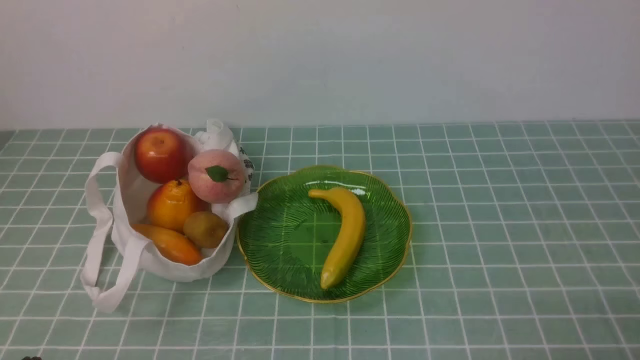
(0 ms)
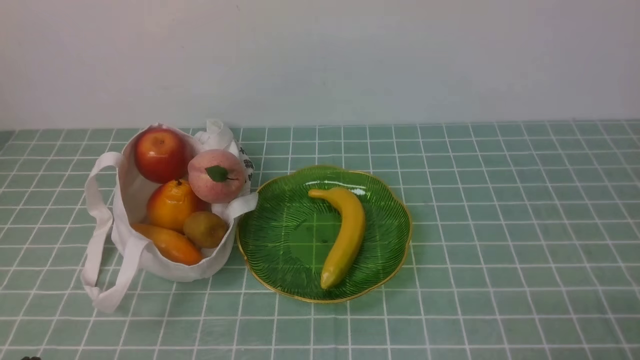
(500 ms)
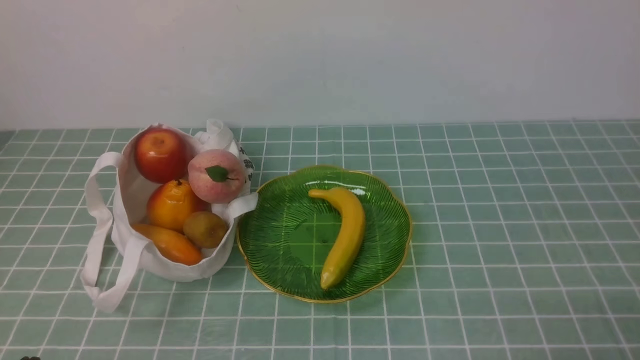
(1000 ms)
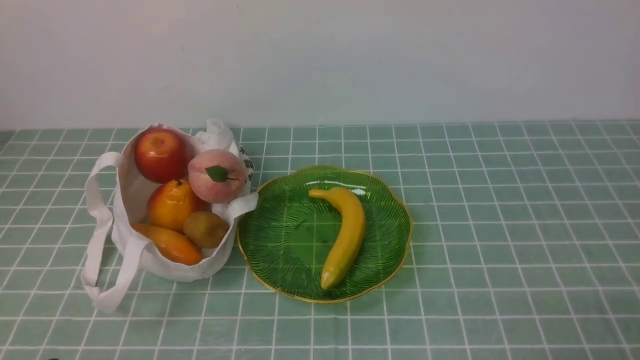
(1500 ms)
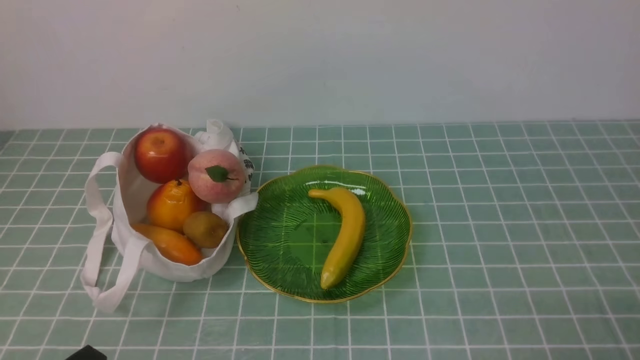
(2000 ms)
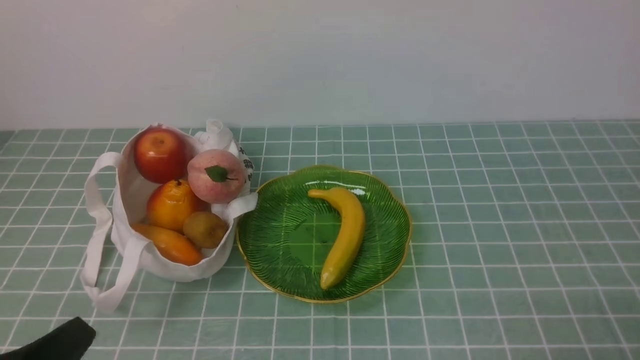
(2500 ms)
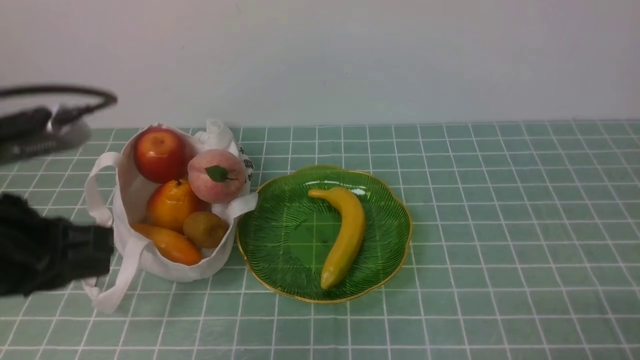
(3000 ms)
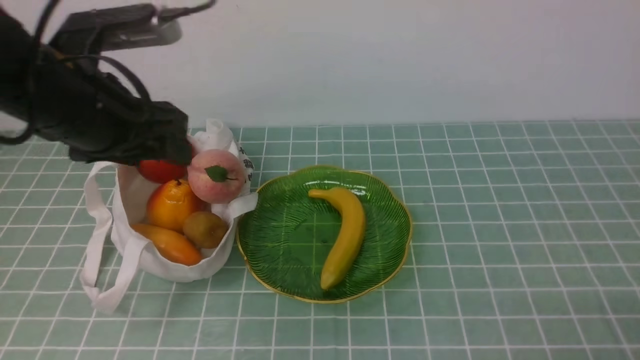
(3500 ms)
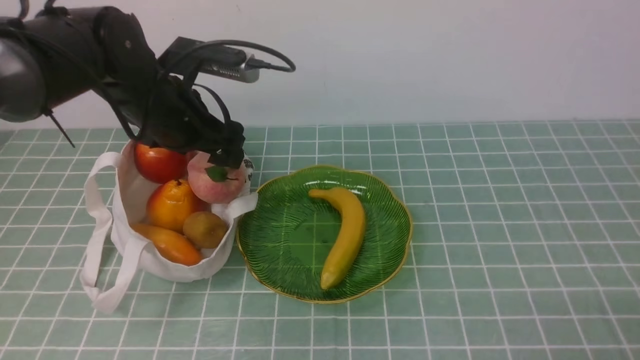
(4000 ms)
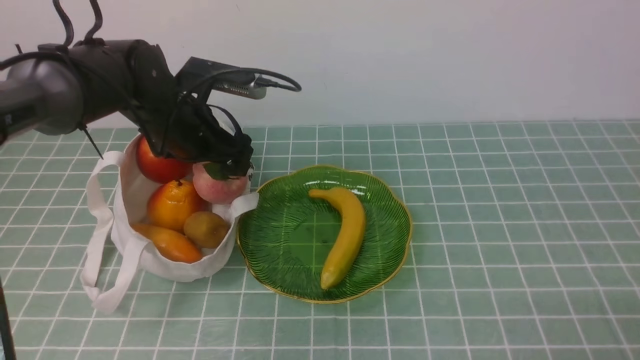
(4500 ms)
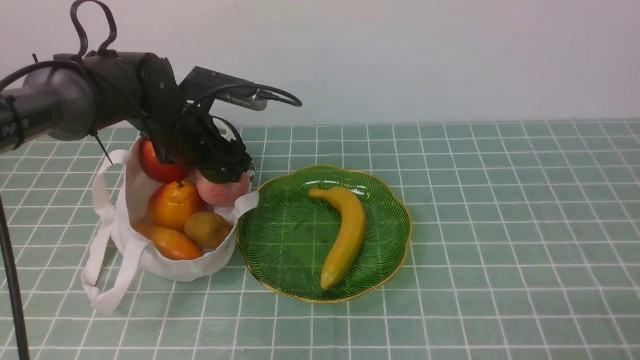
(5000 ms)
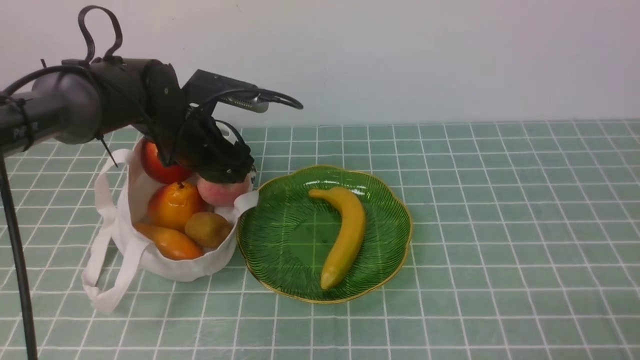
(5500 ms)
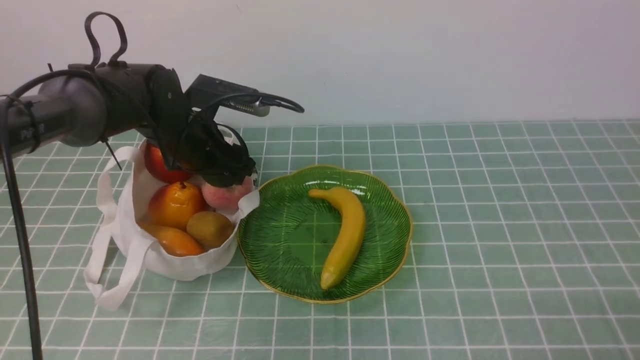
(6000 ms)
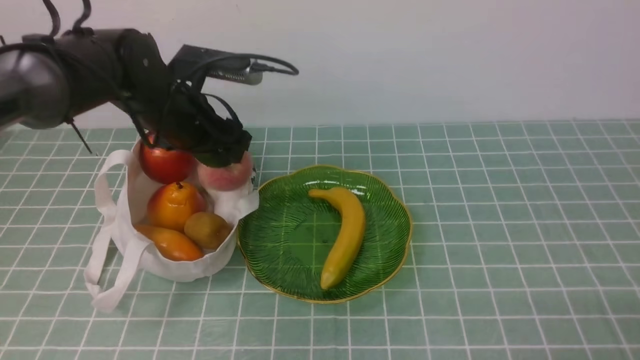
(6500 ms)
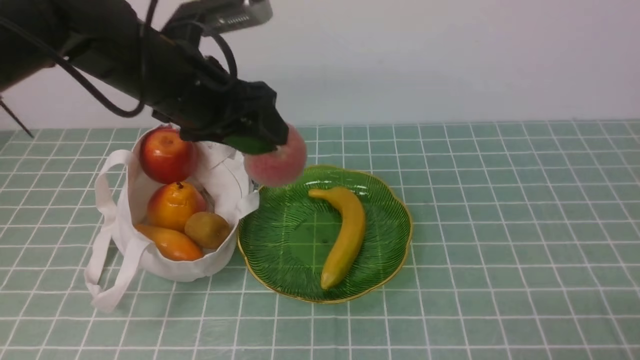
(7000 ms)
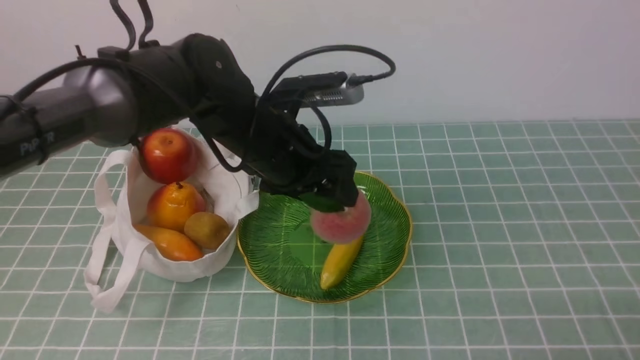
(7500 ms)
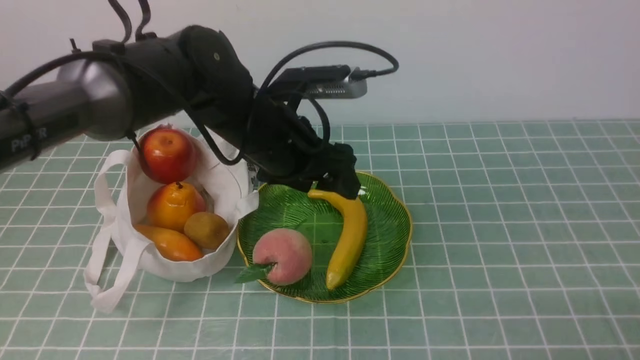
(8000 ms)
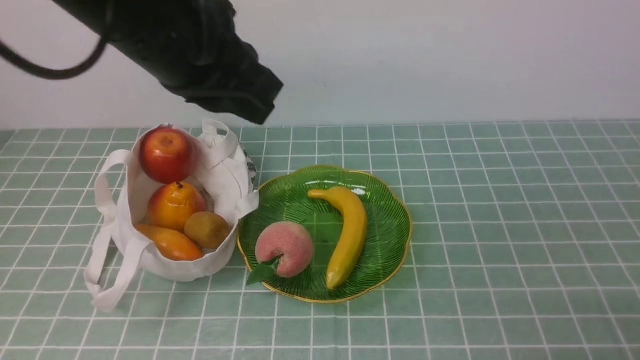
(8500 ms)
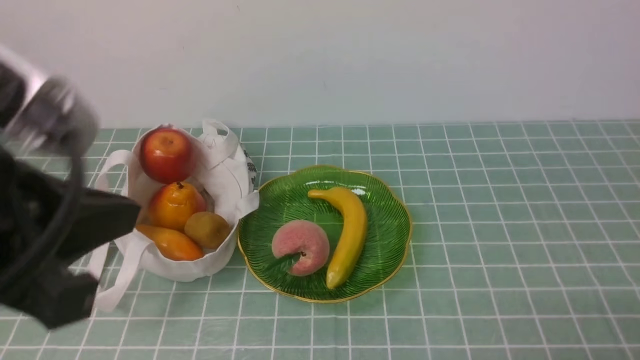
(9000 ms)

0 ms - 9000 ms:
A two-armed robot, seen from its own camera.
Step, 0 ms - 6500 ms: use the left arm to grab a peach from the bag.
Step, 7000 ms - 7500 ms: use the left arm to put the peach into the empty plate on the right.
2000 ms - 4500 ms: The left gripper goes approximately 35 cm forward, and opens up.
4500 ms - 7000 ms: The left gripper is displaced upward and backward by about 10 cm.
7000 ms - 9000 ms: The left gripper shifts about 25 cm backward, and closes its fingers.

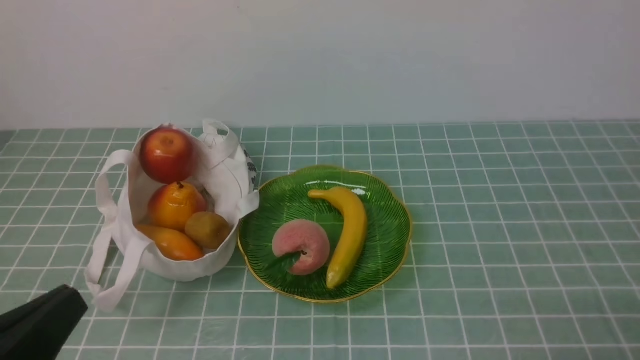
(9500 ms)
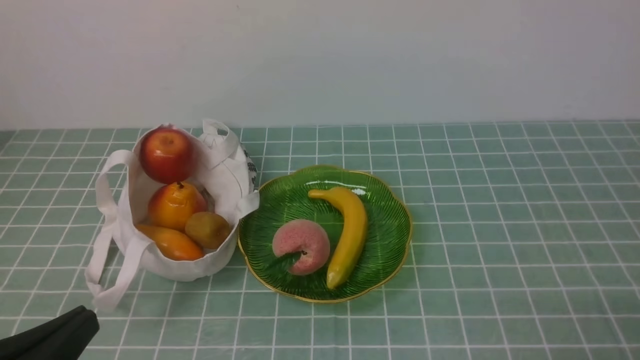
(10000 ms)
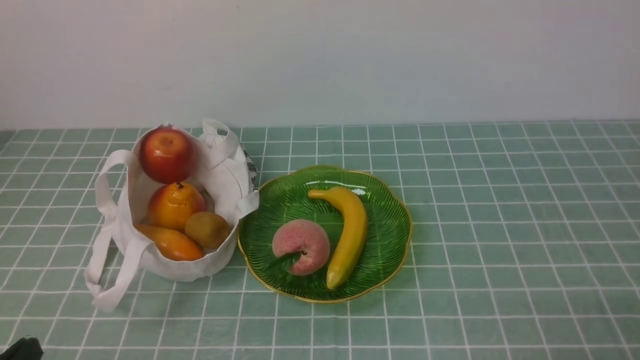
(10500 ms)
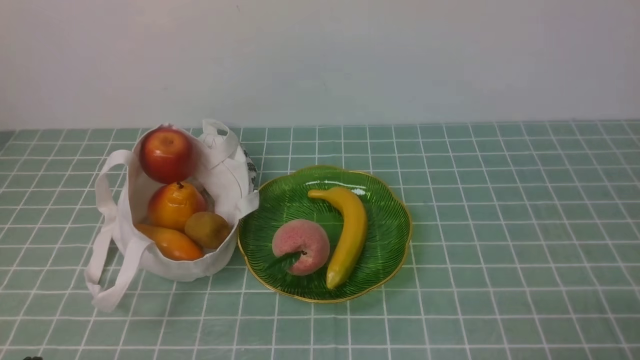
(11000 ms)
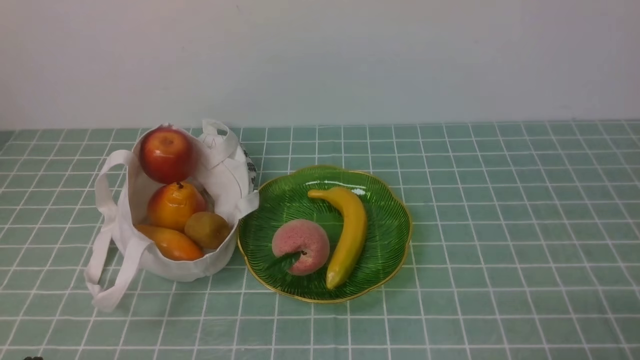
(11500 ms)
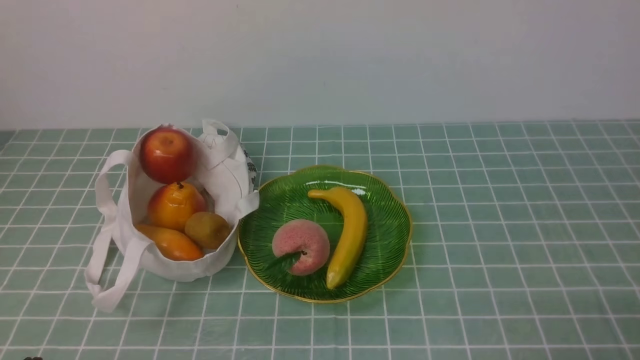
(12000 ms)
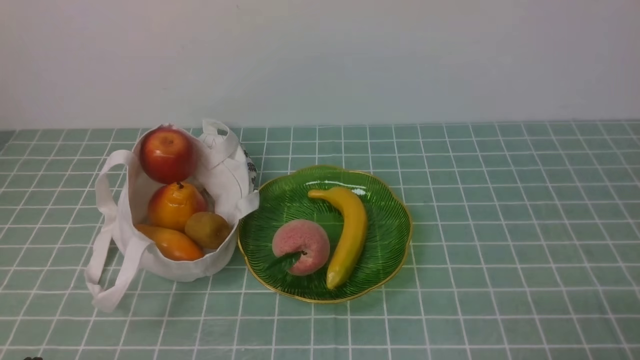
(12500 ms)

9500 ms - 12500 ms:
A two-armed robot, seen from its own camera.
9500 ms - 11000 ms: The left gripper travels downward by some 10 cm.
11000 ms - 12500 ms: Both grippers stay about where they are.
